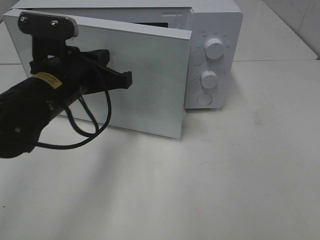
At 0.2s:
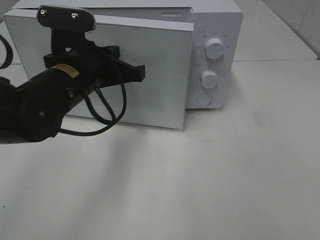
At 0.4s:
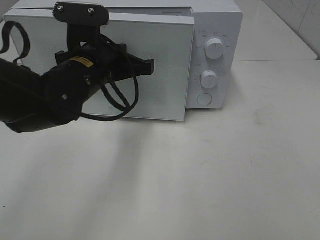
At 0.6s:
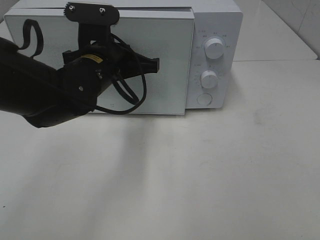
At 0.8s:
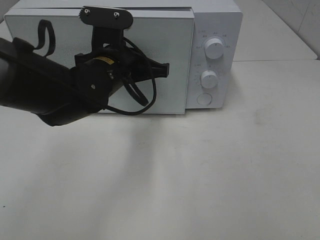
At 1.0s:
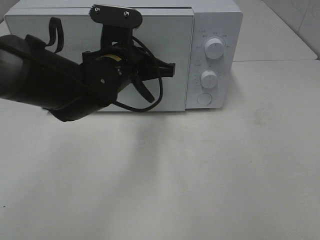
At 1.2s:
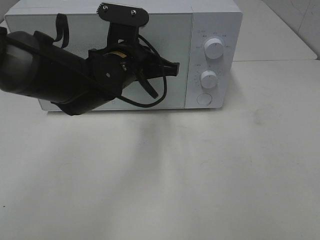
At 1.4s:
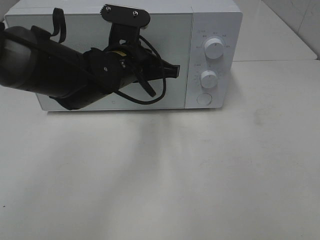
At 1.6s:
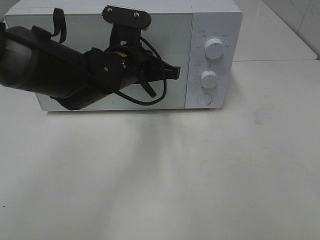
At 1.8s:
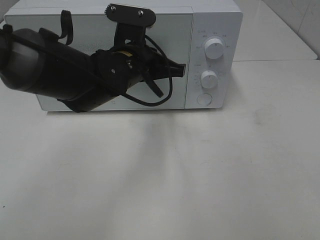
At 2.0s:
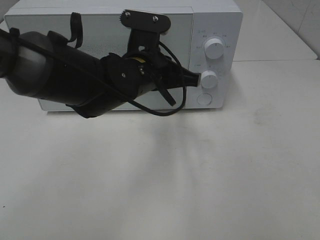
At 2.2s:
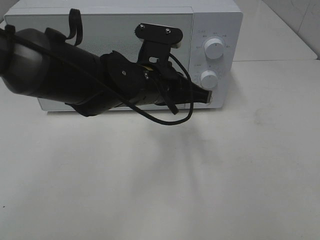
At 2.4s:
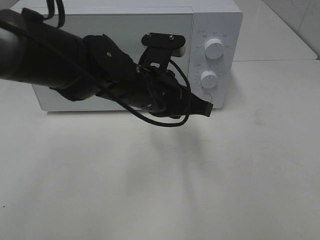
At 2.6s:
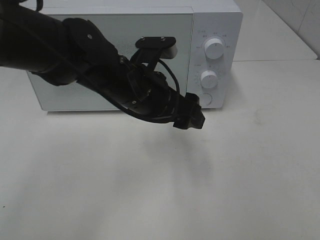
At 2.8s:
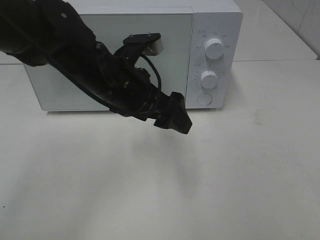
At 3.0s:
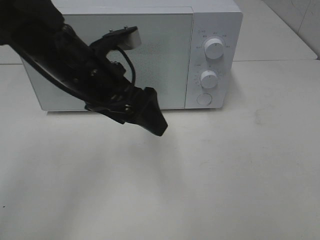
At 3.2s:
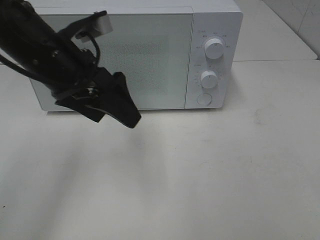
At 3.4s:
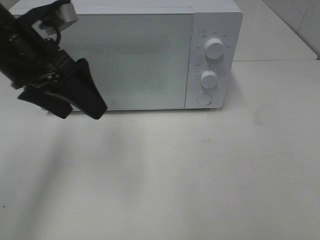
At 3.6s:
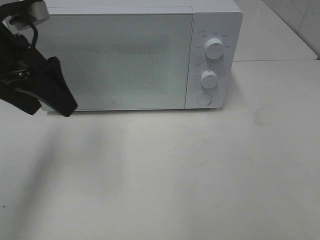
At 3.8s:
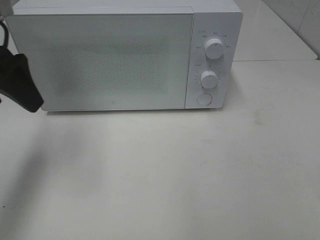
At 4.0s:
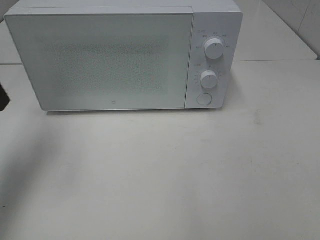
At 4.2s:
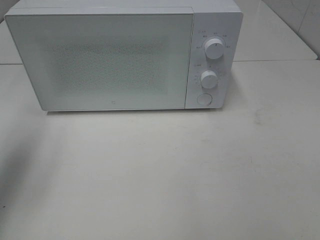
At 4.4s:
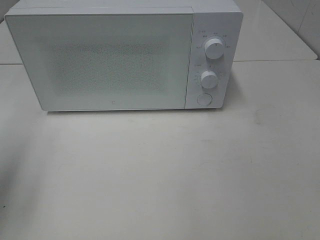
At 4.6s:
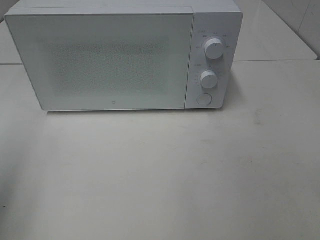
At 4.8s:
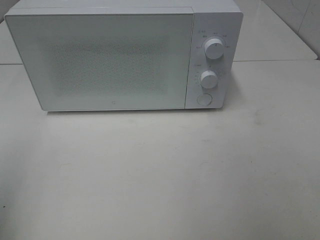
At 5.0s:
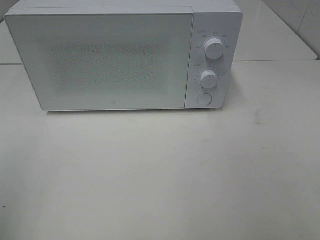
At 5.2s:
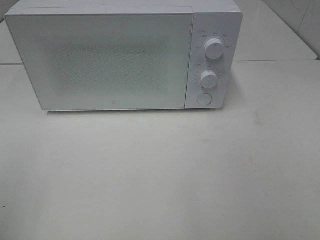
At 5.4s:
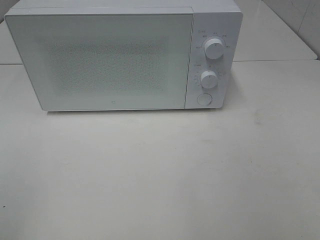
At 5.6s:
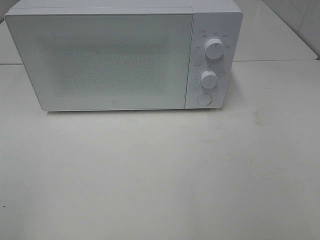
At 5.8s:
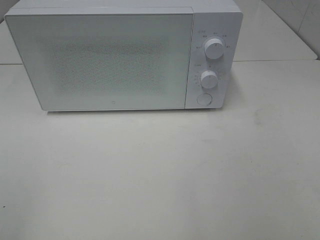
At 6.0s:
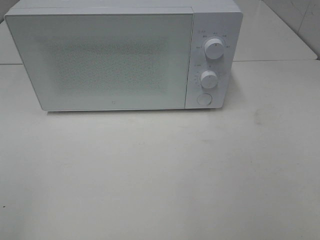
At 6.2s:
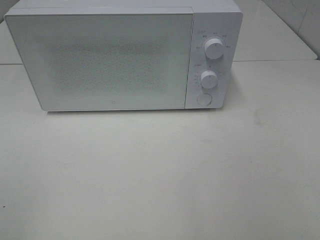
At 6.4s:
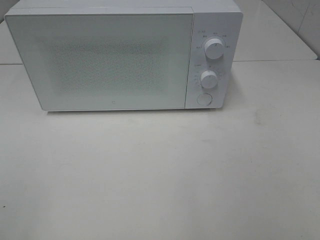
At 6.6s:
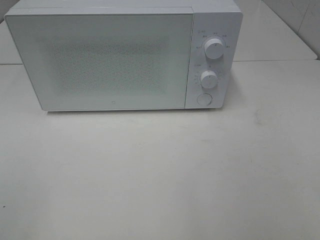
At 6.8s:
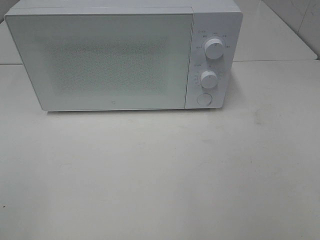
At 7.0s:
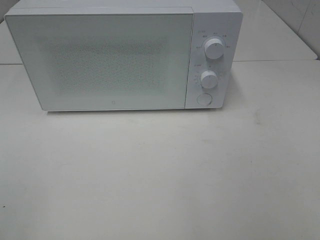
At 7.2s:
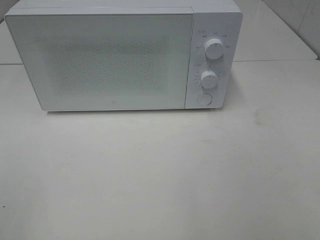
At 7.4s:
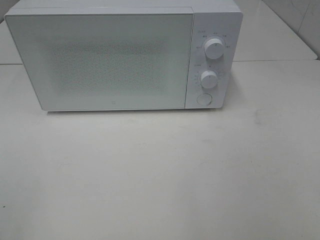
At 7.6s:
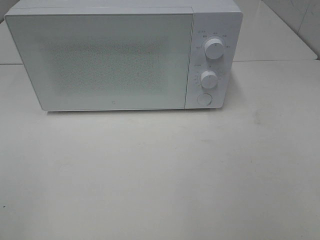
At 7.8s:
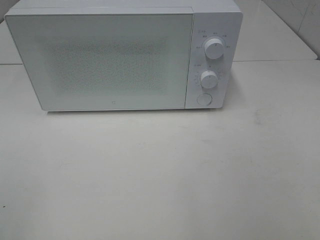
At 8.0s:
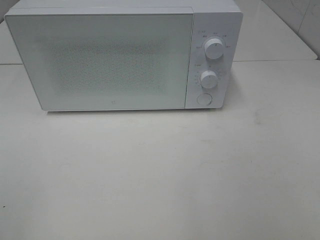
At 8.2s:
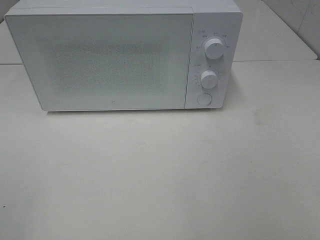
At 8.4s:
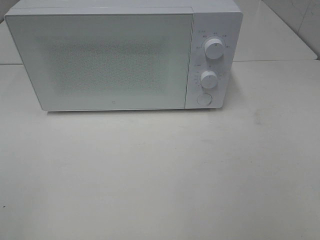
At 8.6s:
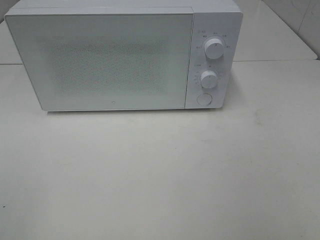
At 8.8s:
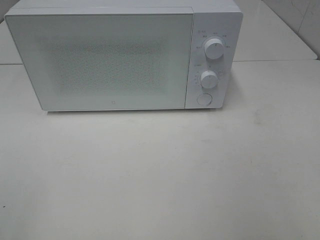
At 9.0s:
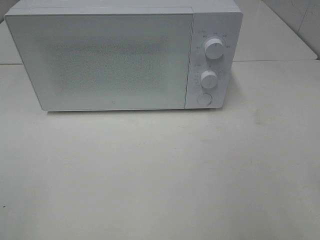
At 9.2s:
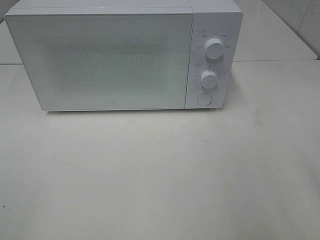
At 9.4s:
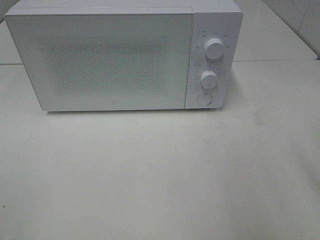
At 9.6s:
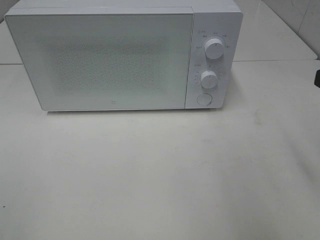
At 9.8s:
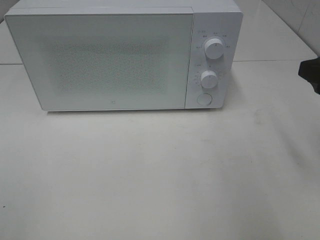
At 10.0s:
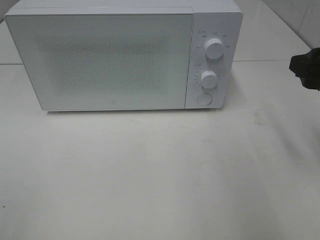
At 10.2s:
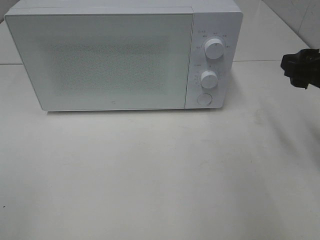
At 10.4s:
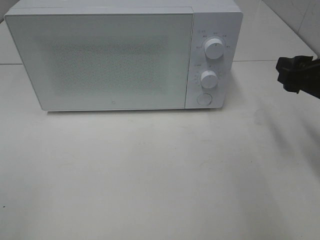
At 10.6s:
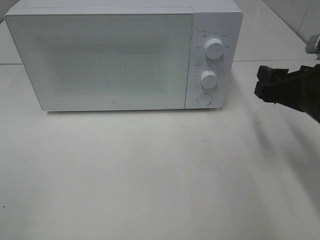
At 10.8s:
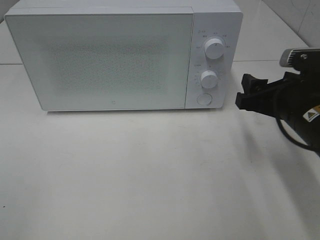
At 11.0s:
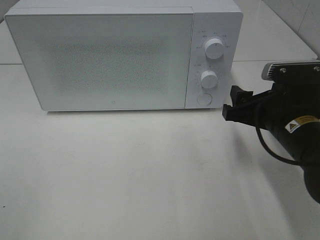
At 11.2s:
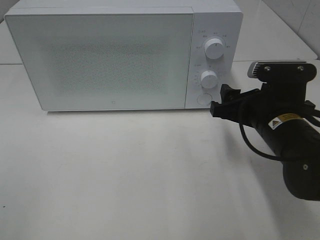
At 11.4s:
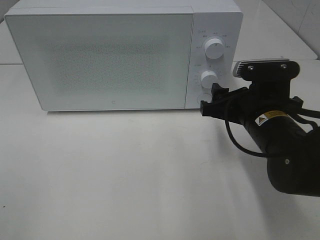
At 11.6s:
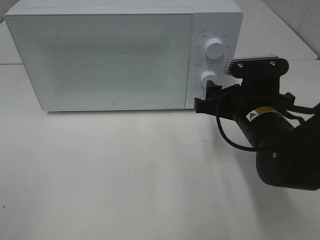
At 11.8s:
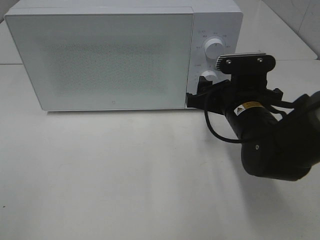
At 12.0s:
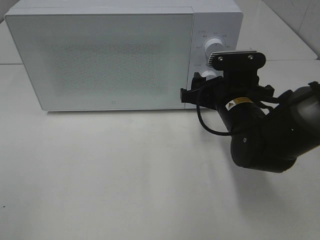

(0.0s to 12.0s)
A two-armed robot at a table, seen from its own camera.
Task of the whole recording: Heat the burger.
Step, 0.0s - 2.2s: Left hand: close the microwave door.
0.0s - 1.6s: The left gripper moves to the right and forward, approximately 10 cm.
1.6s - 3.0s: The left gripper is displaced backward by about 5 cm, and opens its fingers.
3.0s - 4.4s: The left gripper goes roughly 25 cm to the left.
4.4s - 6.0s: The left gripper travels backward by some 20 cm.
9.0s - 10.4s: The right gripper shifts some 15 cm forward and downward.
10.4s - 12.0s: The right gripper travels to the left, downward and forward by some 15 cm.

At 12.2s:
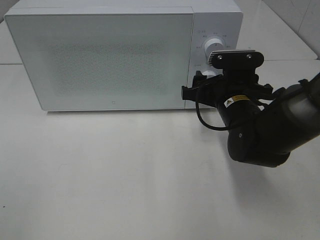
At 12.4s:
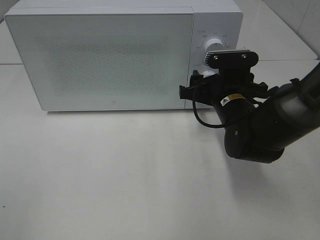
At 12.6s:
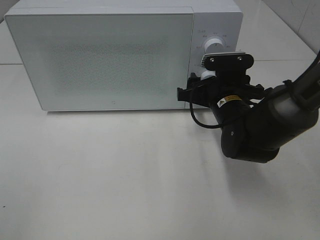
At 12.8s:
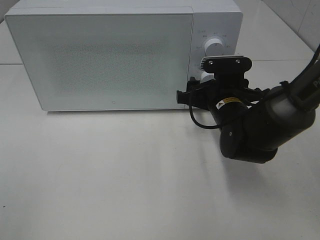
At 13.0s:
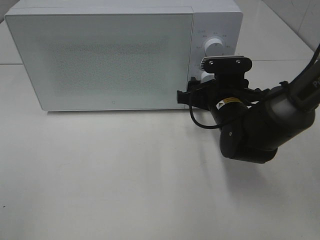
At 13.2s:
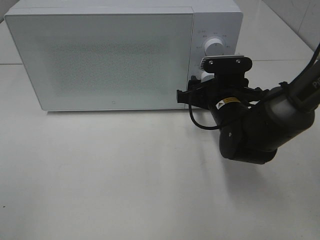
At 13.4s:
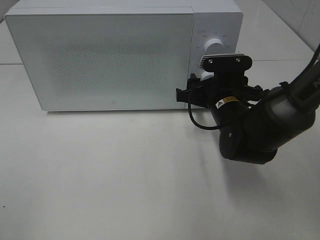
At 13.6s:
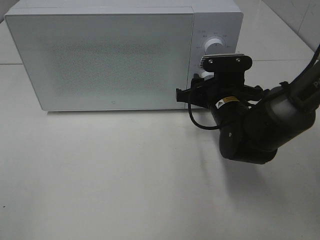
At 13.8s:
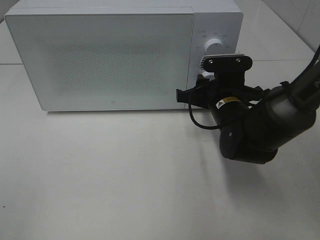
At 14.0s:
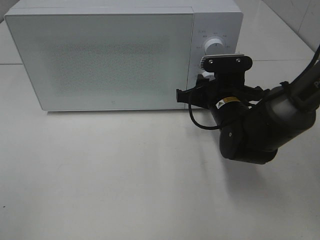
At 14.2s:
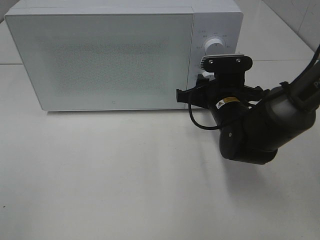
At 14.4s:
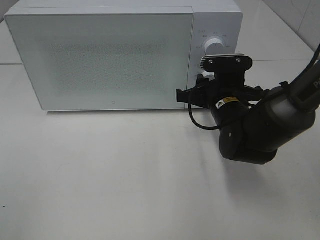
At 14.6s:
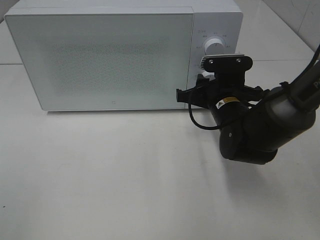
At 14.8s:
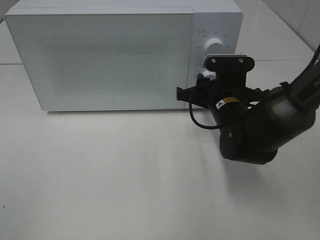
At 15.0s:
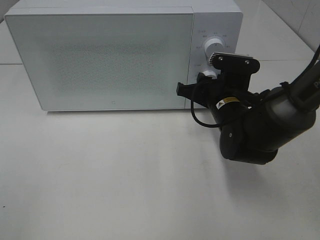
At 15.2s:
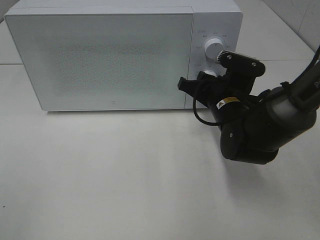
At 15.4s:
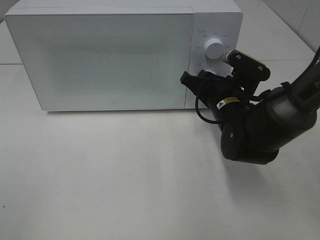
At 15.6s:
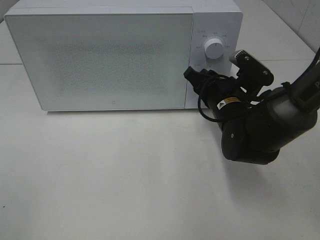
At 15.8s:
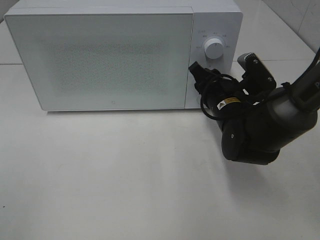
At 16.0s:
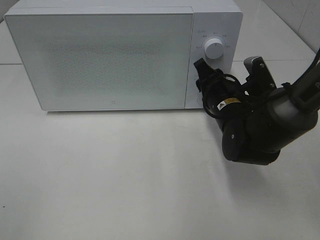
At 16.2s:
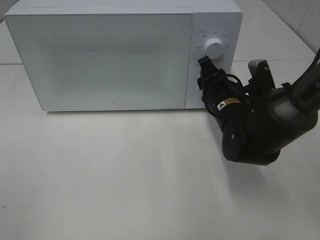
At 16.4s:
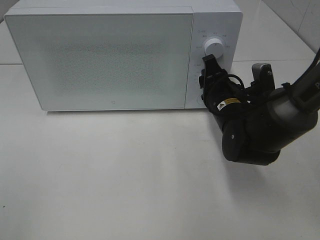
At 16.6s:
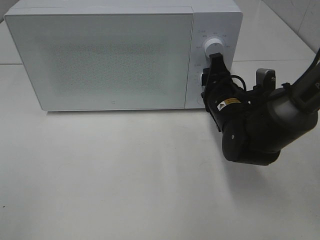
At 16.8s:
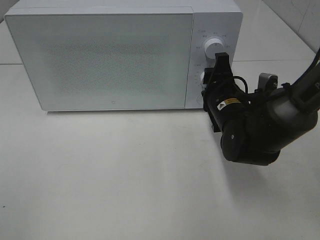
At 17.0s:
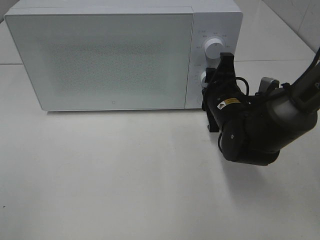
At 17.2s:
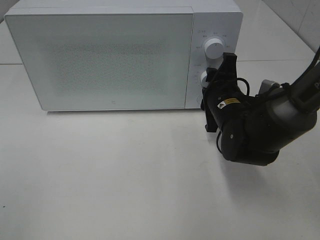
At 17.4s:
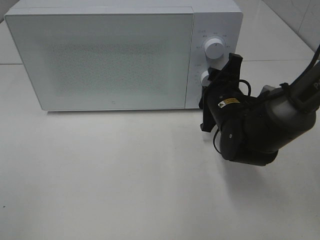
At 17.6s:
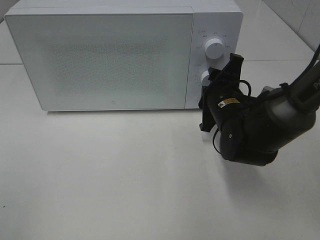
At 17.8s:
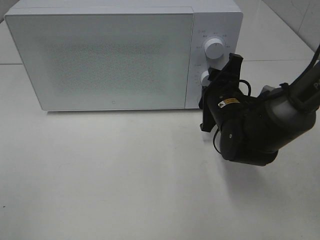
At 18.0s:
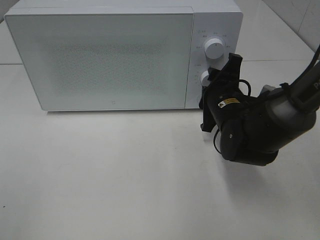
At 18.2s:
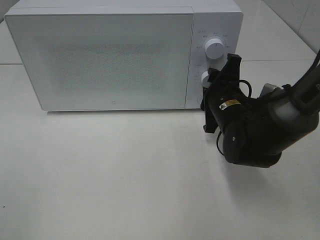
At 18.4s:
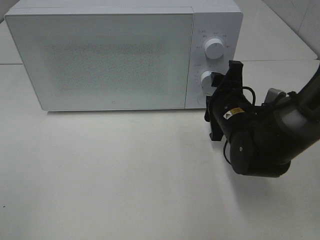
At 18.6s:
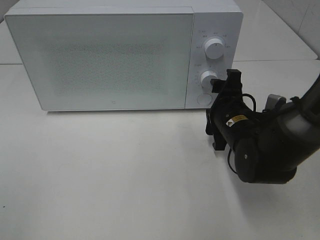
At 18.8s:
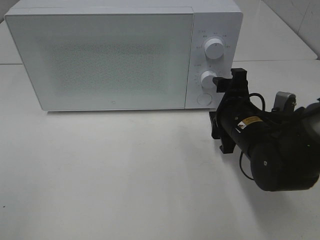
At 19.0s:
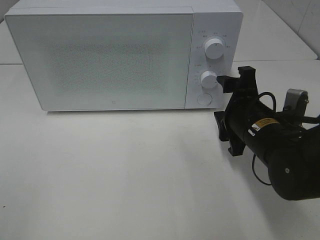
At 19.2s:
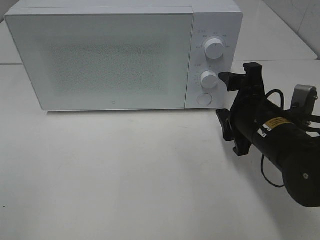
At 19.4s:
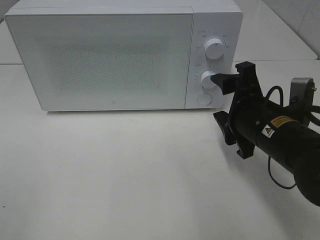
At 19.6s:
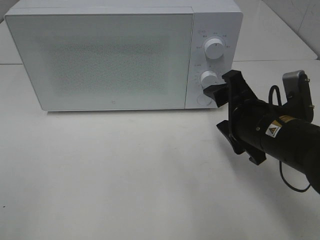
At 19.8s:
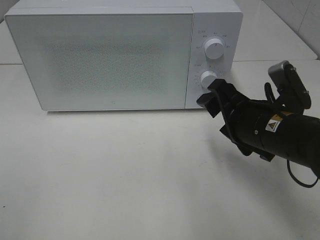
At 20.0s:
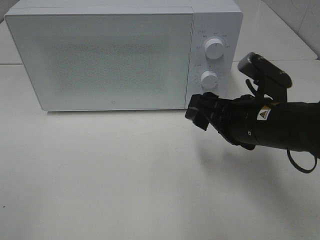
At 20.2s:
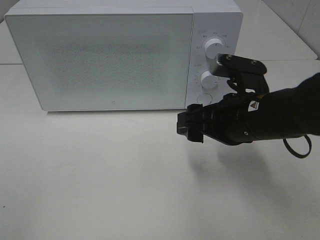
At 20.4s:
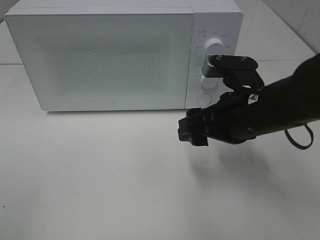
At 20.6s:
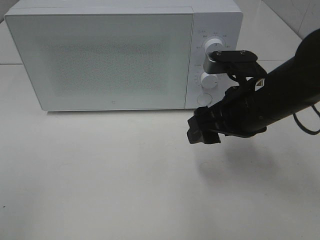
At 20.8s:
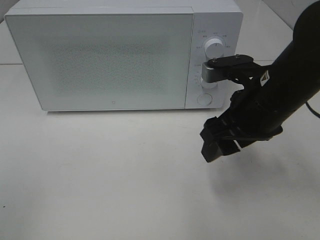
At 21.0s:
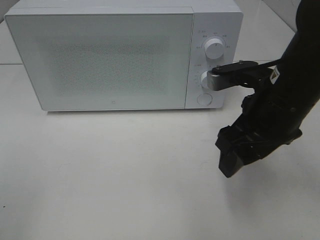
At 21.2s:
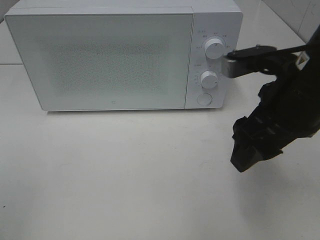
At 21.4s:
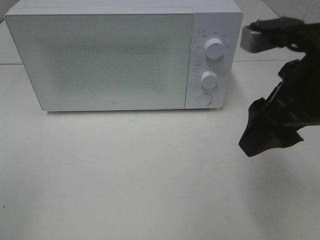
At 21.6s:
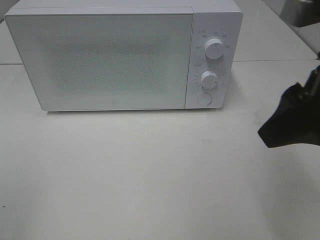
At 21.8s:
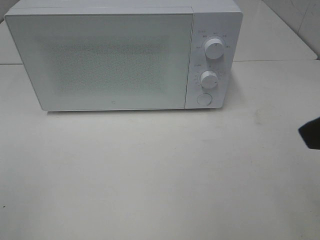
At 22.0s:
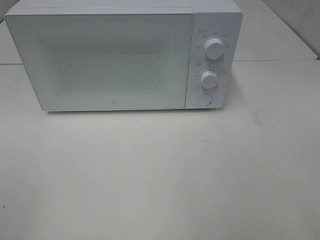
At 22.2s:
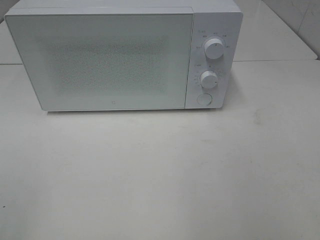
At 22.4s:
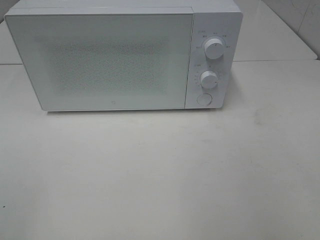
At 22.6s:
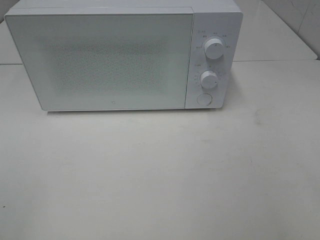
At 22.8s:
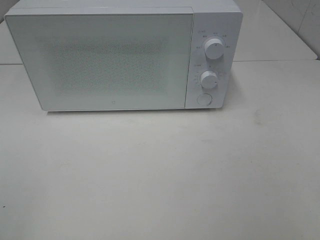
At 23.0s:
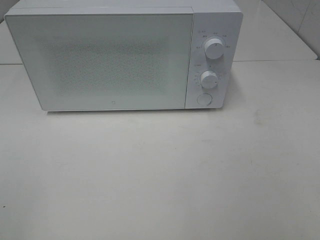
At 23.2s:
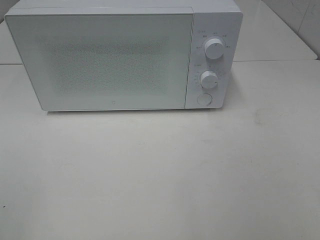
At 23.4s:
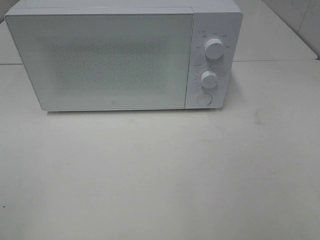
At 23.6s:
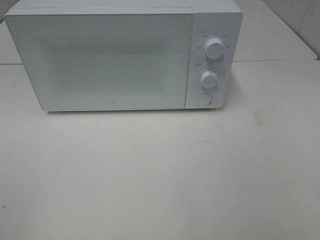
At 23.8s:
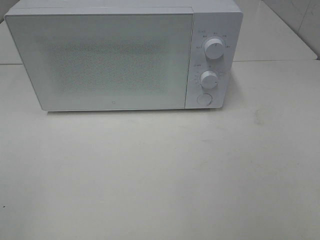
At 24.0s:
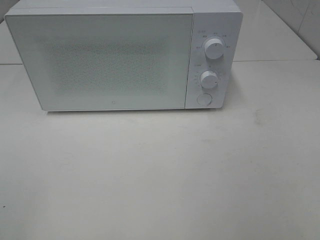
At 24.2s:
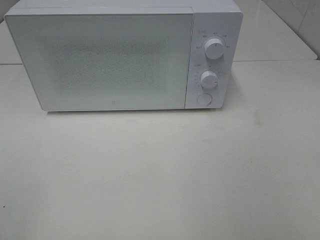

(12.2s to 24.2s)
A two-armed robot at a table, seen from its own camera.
Task of the whole recording: Heat the burger.
Step, 12.2s - 18.8s: Right hand: twist timer button.
12.2s - 13.8s: The right gripper closes up.
13.8s - 15.2s: The grippers make only small movements.
18.2s - 19.8s: The right gripper shifts some 10 cm backward and upward, and opens.
19.8s - 21.2s: The right gripper travels upward by roughly 10 cm.
21.2s - 22.6s: The right gripper goes roughly 25 cm backward and to the right.
